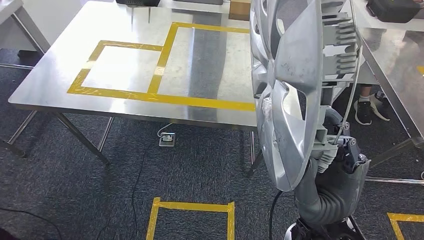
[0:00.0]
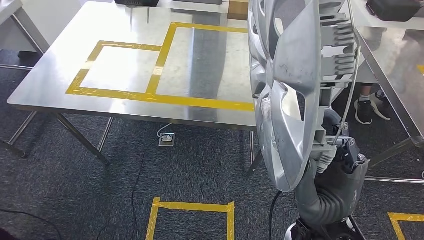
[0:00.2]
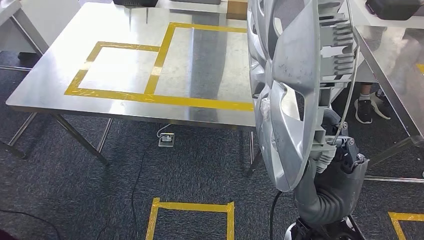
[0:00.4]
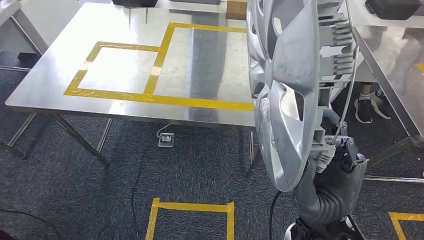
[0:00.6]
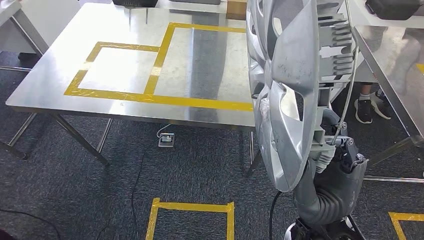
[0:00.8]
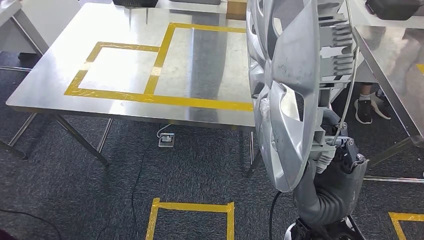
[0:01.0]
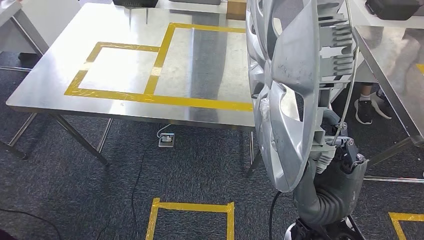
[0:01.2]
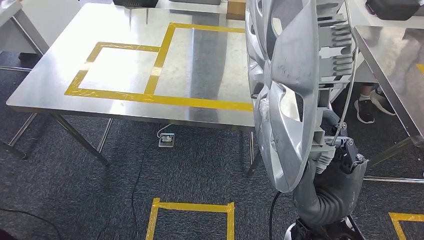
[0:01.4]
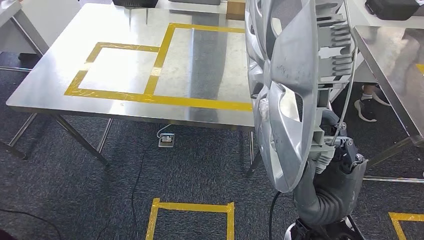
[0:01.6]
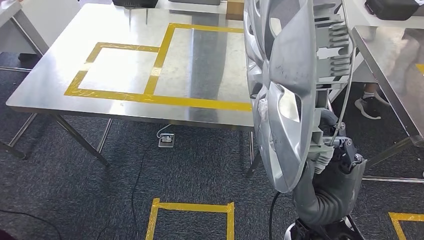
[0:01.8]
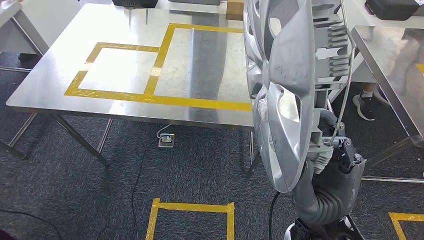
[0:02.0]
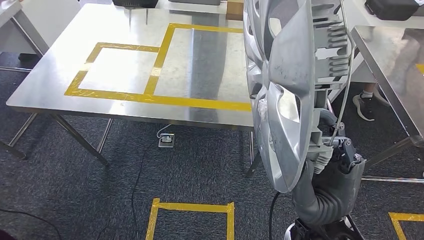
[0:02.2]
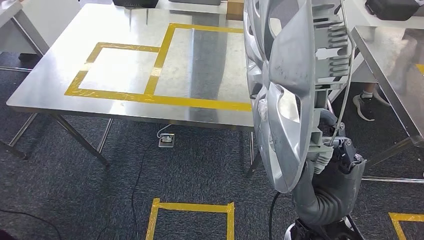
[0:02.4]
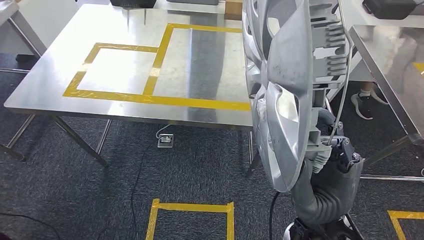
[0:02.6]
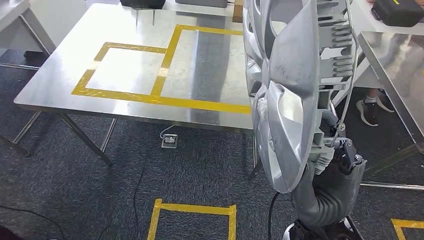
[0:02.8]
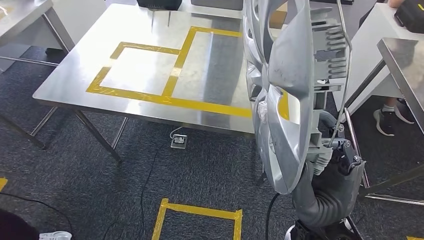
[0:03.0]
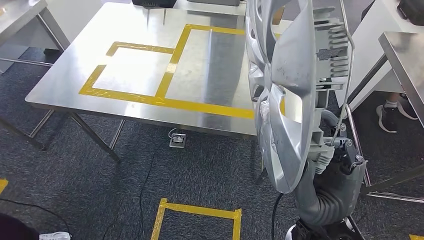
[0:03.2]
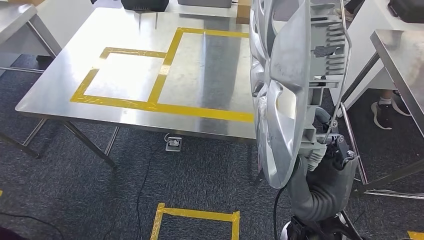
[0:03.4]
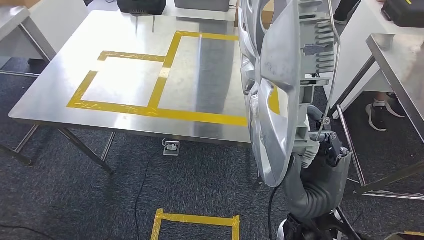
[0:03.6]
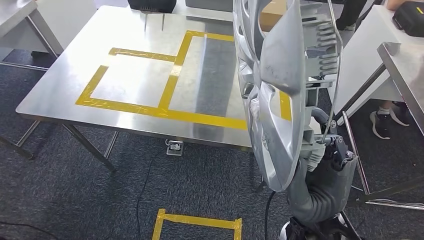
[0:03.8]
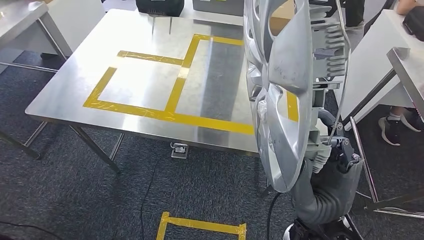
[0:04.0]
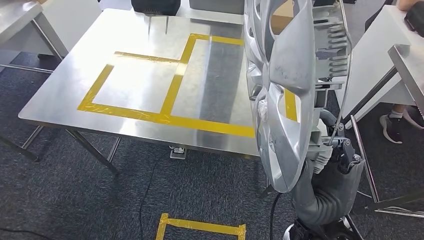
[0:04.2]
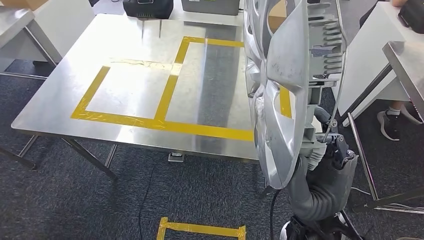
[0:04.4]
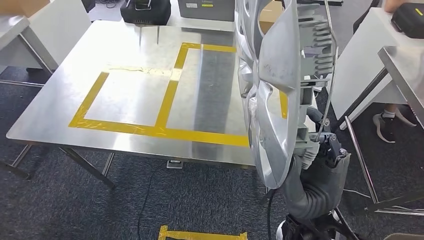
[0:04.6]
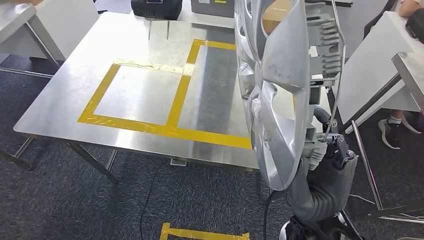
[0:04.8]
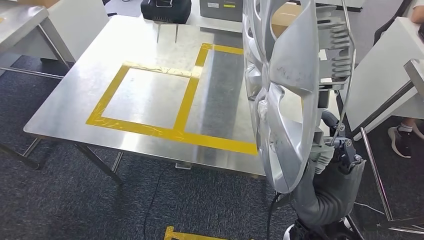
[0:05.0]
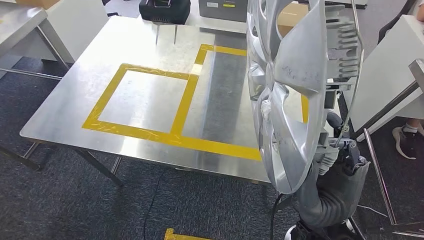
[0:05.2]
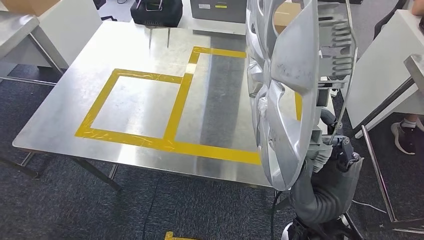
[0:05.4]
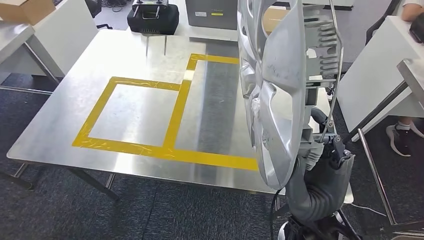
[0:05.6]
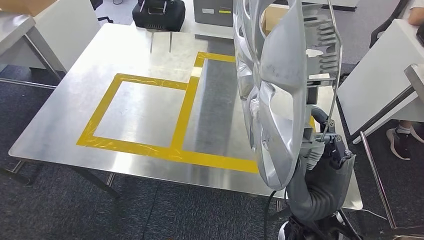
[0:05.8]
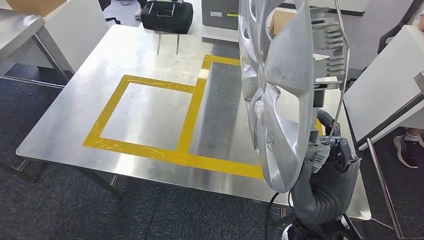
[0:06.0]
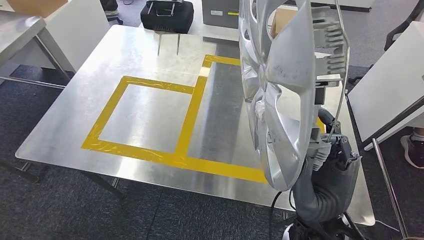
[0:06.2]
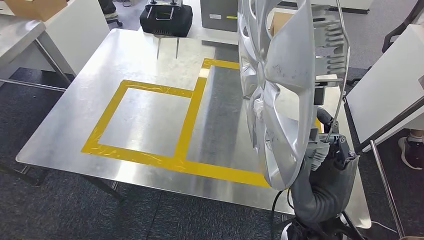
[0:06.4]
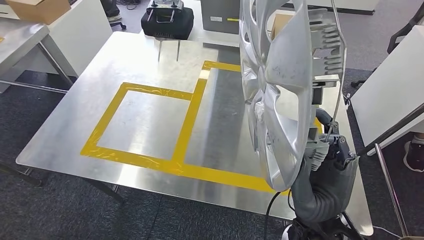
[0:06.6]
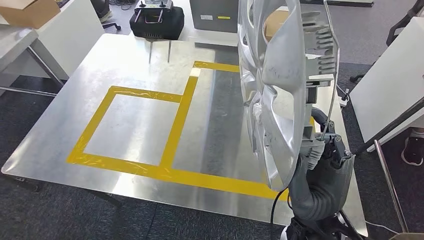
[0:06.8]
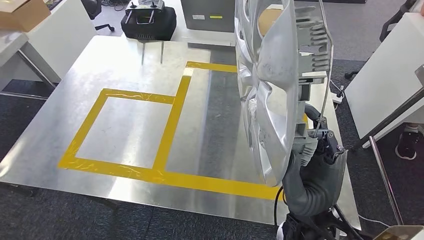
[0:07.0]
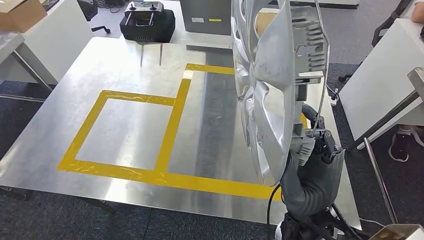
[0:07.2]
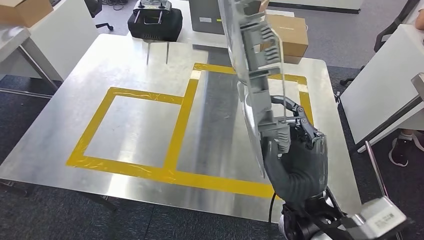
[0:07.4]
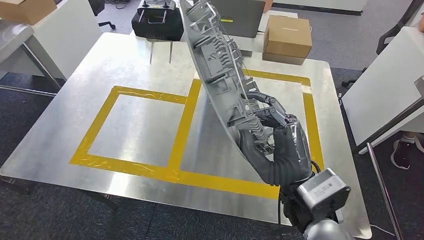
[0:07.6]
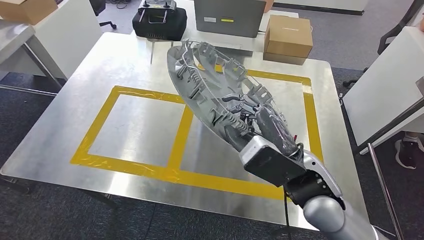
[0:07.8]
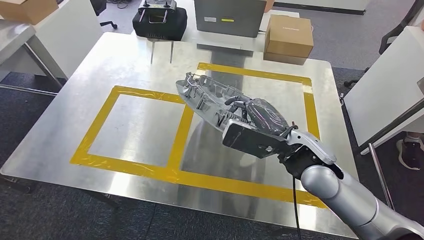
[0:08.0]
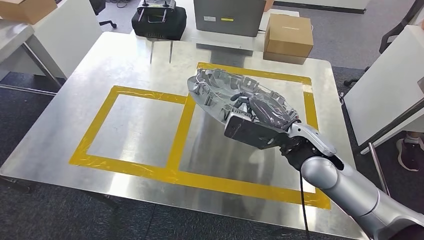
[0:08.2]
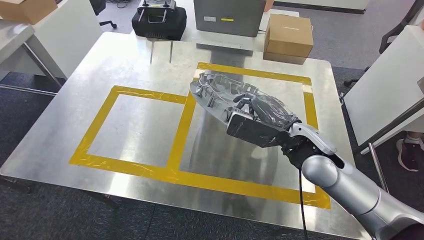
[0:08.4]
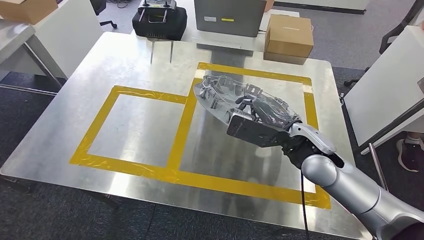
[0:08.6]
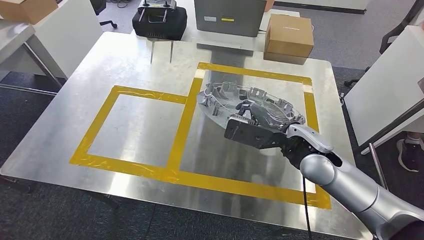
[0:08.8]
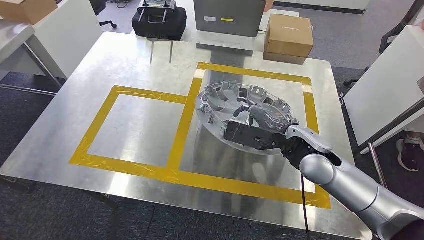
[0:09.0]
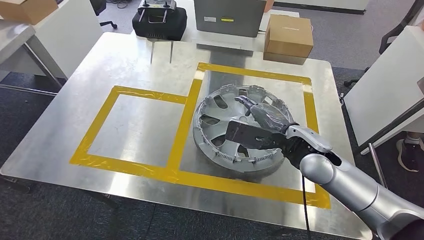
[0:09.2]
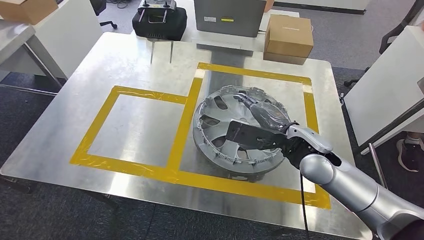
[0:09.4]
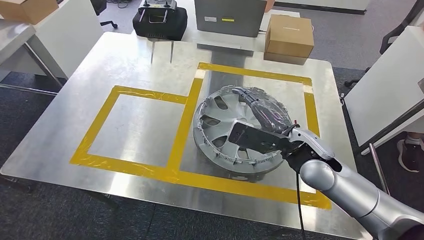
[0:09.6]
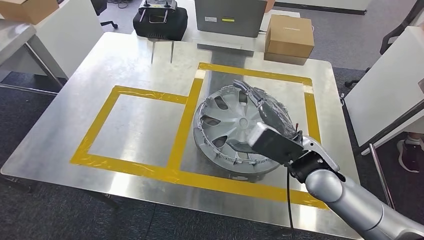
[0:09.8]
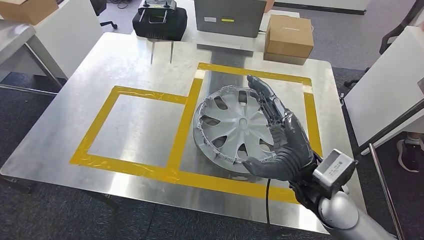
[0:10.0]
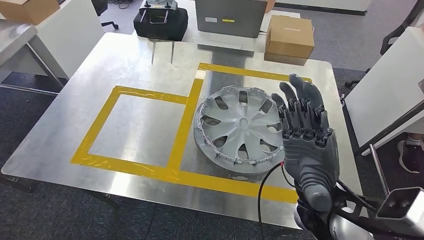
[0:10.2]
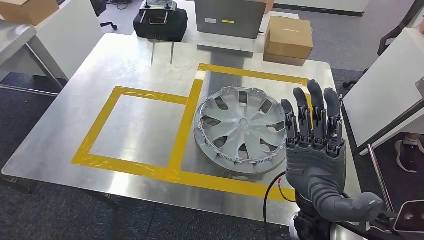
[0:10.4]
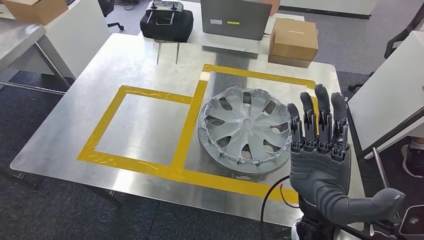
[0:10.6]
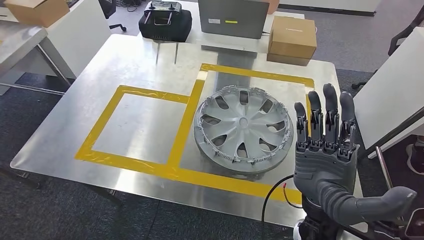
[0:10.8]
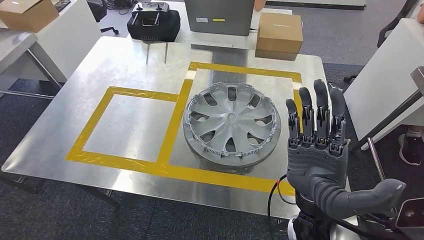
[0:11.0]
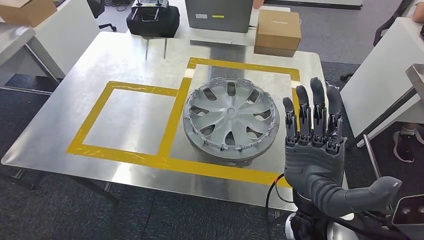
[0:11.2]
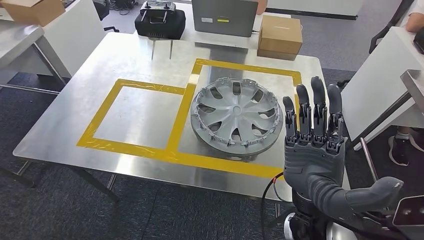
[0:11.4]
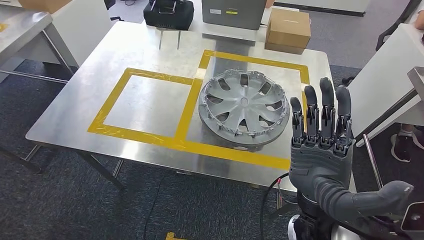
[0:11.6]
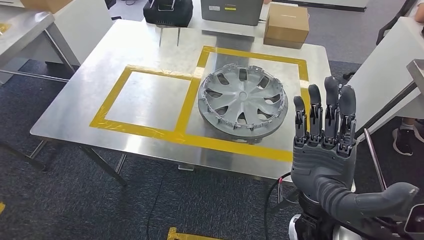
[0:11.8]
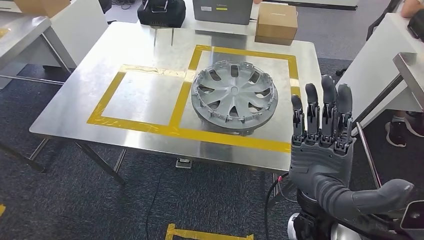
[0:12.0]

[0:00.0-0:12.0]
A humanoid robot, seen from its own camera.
Step, 0:00.0 to 0:10.4: Insert the small component into the corresponding slot on the workbench.
0:00.0 to 0:01.6: Neither hand changes place.

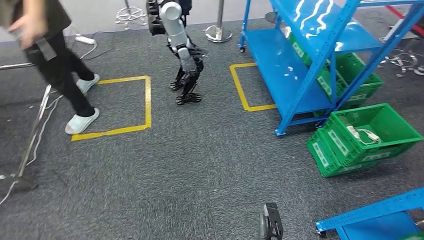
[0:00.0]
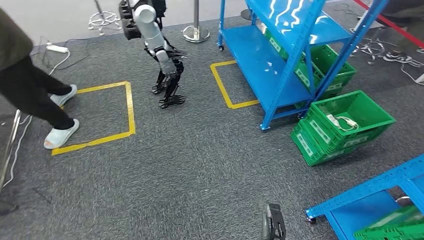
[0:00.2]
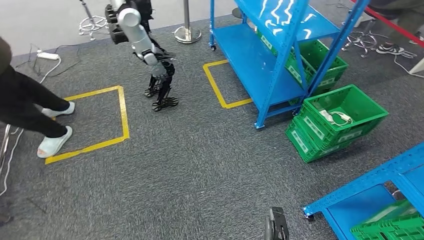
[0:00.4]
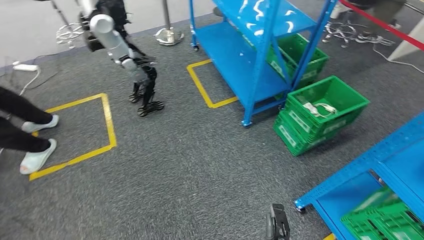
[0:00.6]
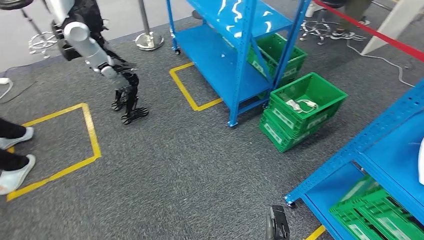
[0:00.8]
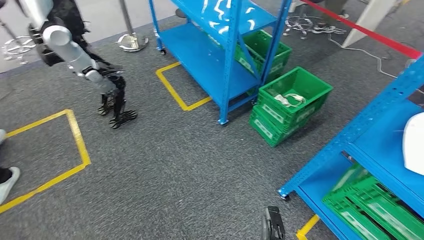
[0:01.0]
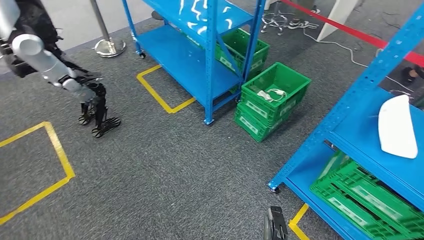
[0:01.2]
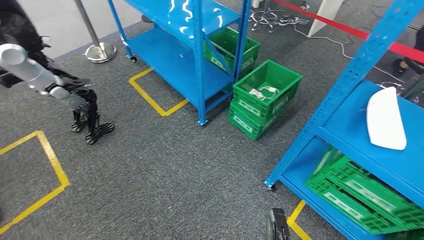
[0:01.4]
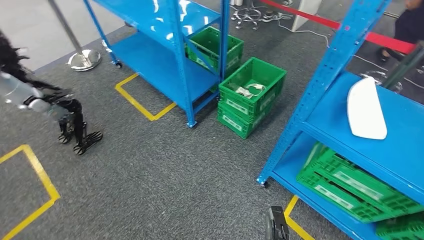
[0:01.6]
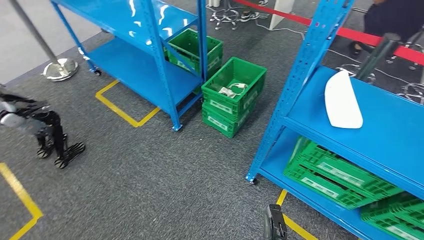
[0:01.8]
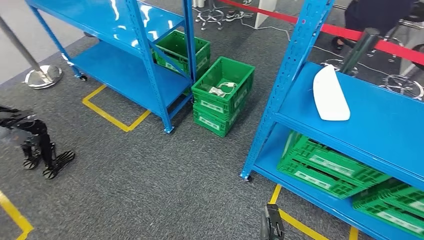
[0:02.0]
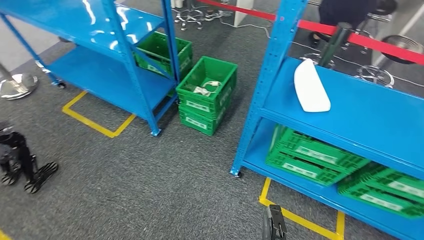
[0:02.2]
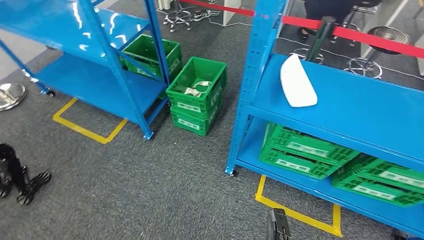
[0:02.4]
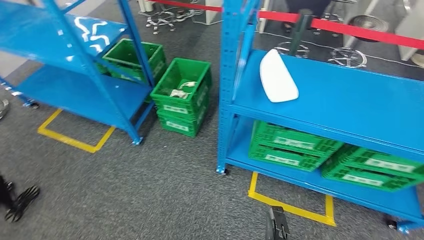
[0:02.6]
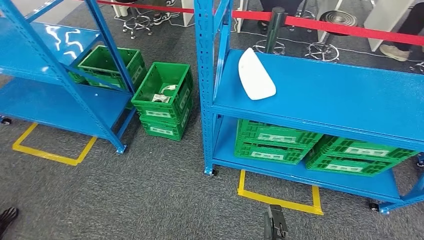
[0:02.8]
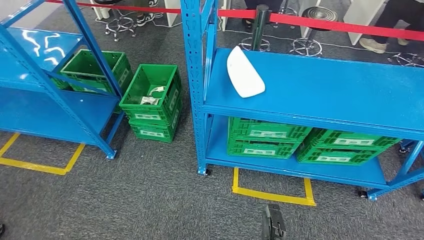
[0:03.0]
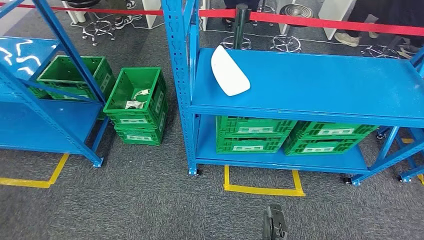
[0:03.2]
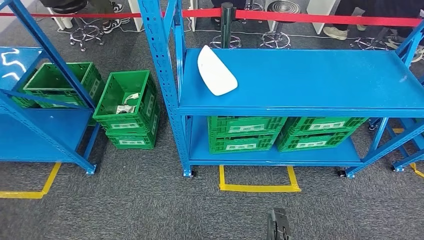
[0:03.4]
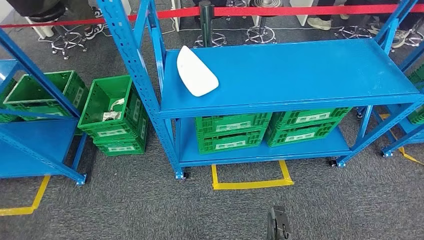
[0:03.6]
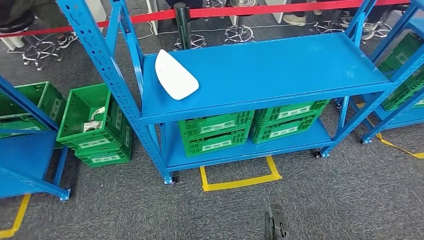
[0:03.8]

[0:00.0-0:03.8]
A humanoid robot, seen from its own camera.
Step, 0:00.0 to 0:03.8: Return to the initial position at the workbench.
